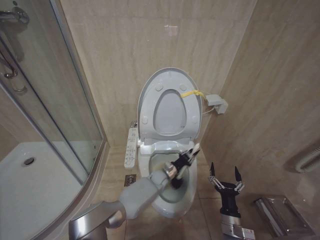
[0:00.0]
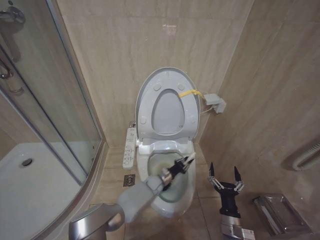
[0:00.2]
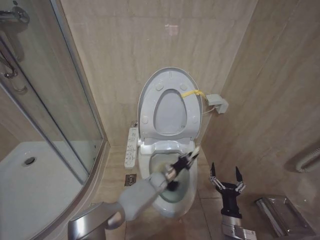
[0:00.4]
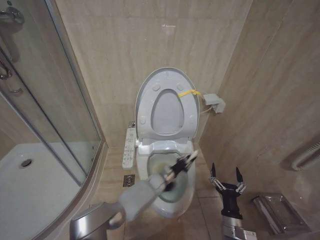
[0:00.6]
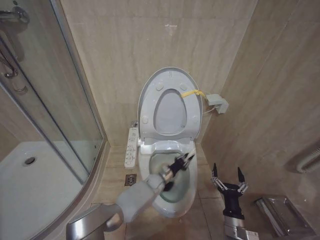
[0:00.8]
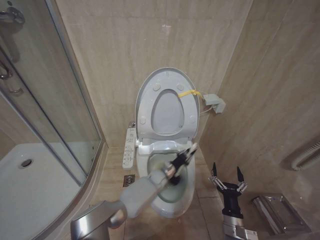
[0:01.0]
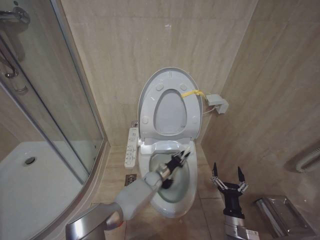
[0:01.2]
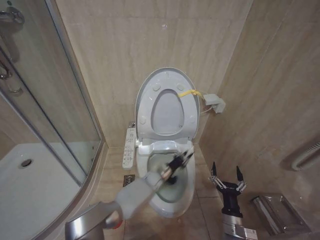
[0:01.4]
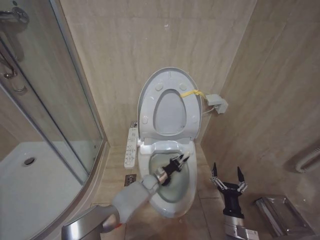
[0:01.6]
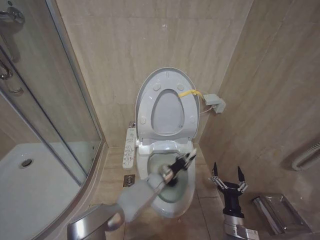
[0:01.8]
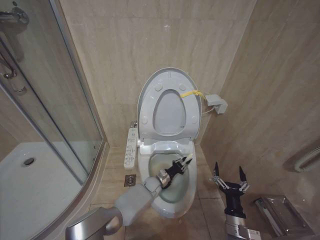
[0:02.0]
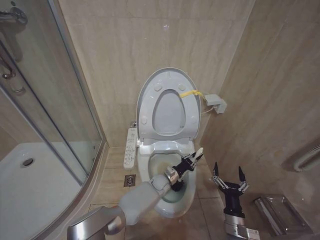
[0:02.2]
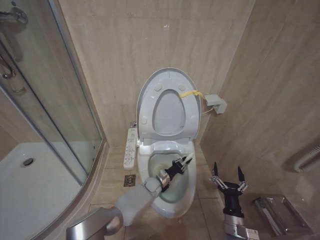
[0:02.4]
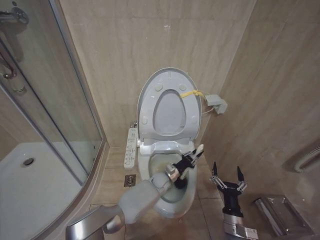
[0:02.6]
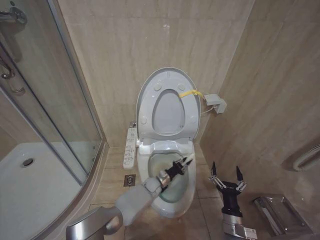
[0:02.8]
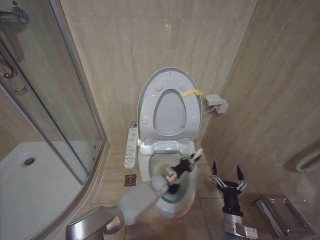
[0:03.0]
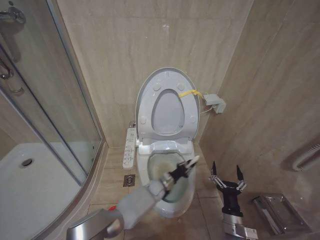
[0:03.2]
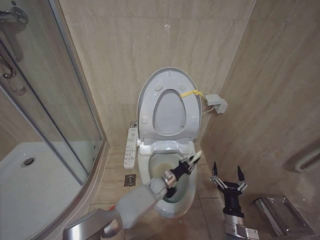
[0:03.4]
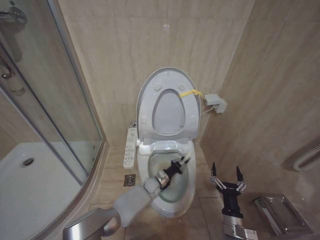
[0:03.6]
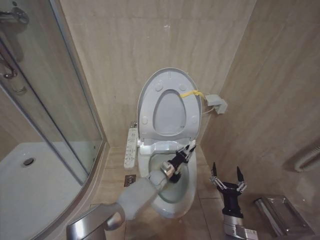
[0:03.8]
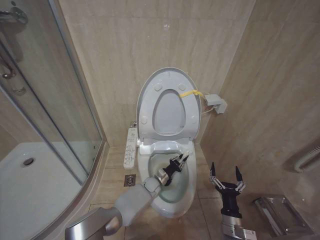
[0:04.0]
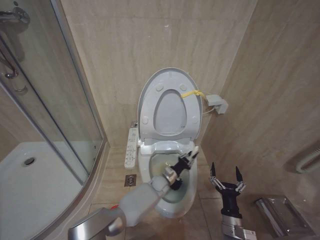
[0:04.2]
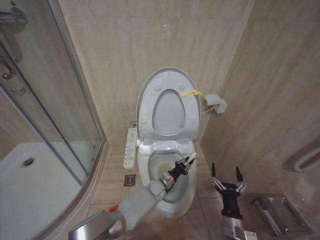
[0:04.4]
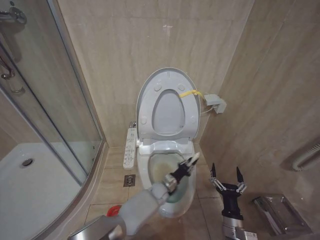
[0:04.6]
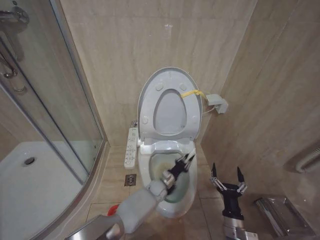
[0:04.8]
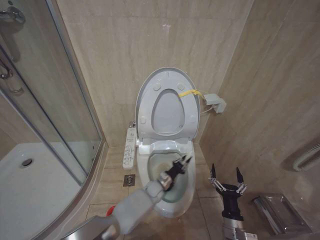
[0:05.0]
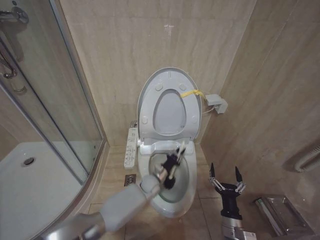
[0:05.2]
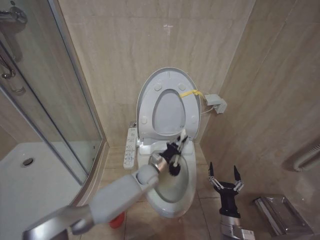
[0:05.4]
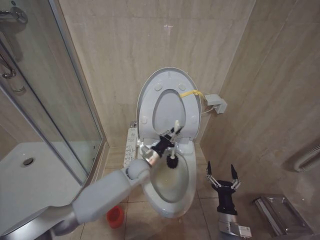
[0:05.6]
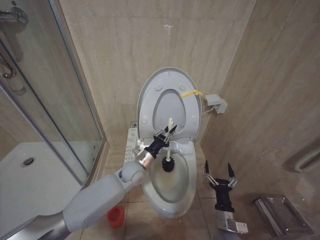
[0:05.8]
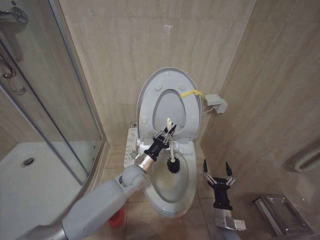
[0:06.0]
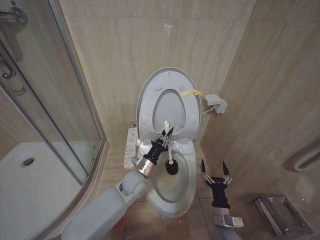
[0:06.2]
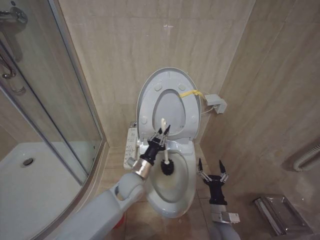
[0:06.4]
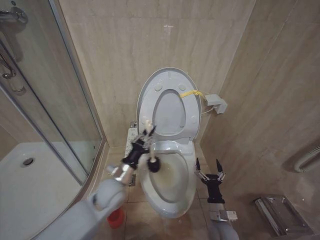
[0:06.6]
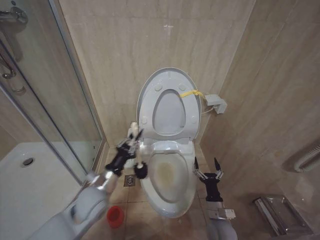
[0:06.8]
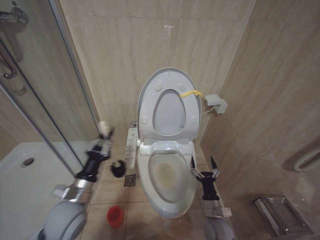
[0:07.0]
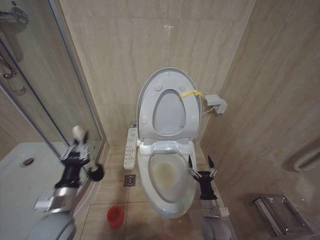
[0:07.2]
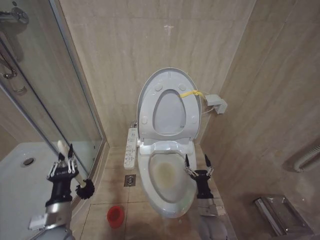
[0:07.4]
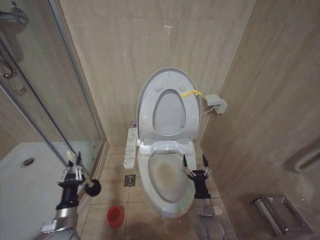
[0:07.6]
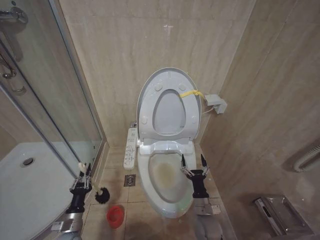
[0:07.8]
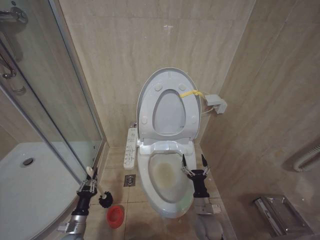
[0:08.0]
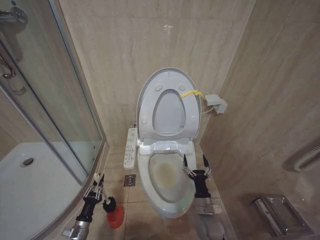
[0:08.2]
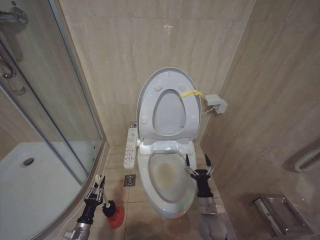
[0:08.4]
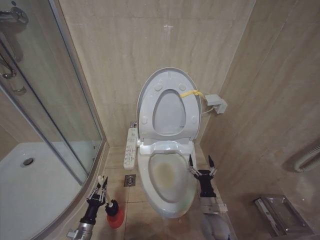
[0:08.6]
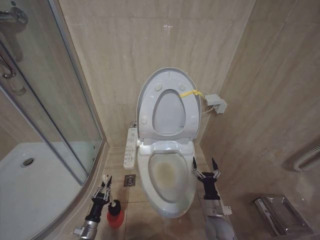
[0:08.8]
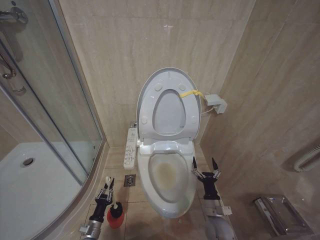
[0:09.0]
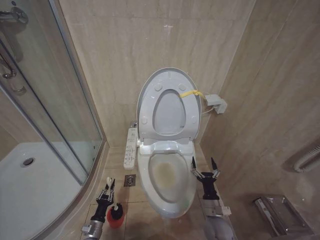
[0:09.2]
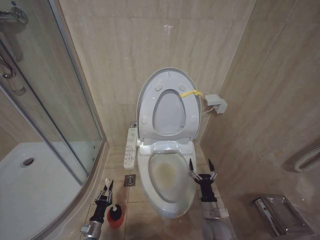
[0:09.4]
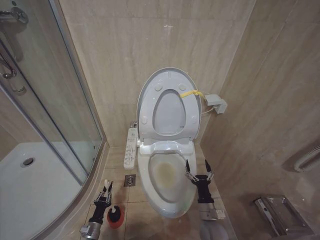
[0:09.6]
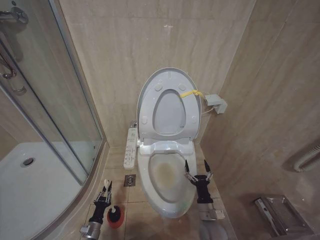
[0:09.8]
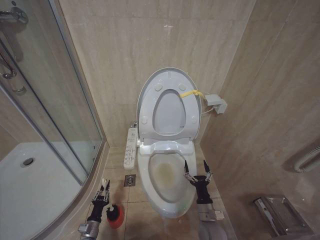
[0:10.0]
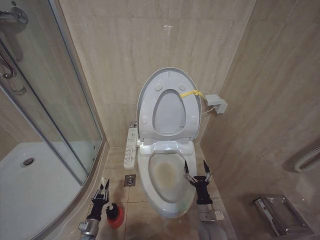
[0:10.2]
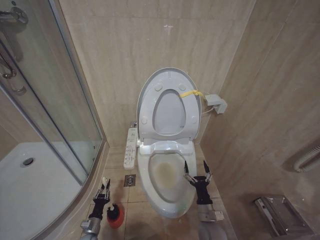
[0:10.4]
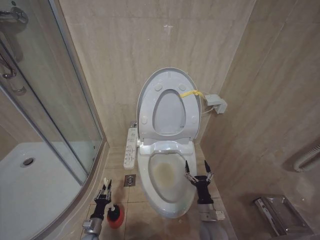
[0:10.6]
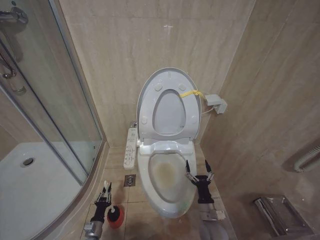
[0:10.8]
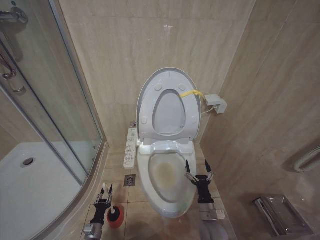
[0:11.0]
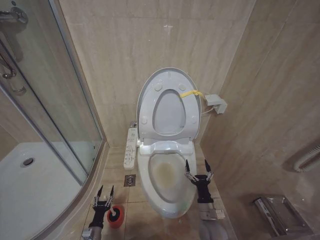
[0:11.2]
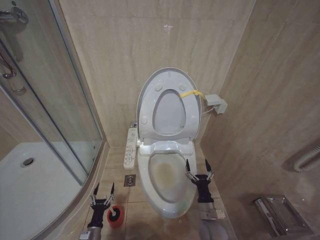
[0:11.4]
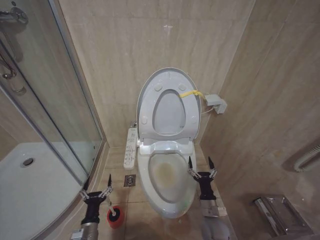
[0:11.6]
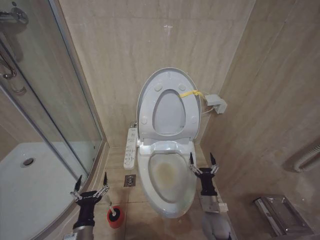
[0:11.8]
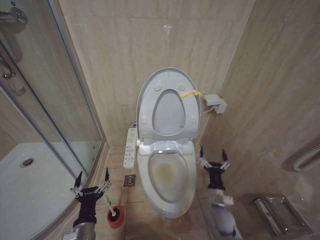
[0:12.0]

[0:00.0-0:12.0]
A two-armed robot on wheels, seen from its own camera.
Task of the whole recording: Open the toilet lid, clean the toilet bowl with a toilet brush, close the toilet lid, and flush.
0:00.0 to 0:01.6: The left gripper moves left and right over approximately 10 cm, changing direction 3 times.
0:03.0 to 0:04.4: The grippers move only a little.
0:04.4 to 0:06.0: The left gripper goes about 20 cm upward and to the left.
0:06.0 to 0:07.6: The right gripper moves roughly 5 cm; the left gripper shifts roughly 30 cm to the left and backward.
0:07.6 to 0:09.0: The left gripper goes some 20 cm downward.
0:09.0 to 0:10.4: The grippers make only small movements.
0:10.4 to 0:12.0: The right gripper is displaced upward by approximately 5 cm; the left gripper travels upward and backward by approximately 25 cm, and opens its fingers.

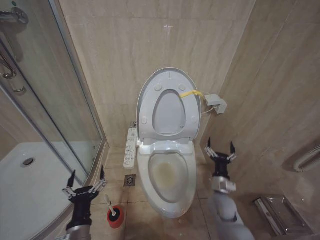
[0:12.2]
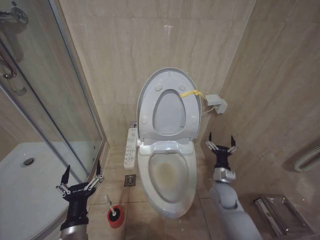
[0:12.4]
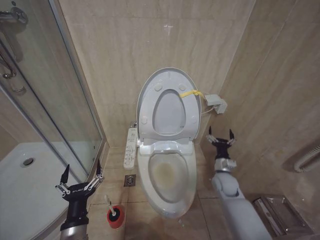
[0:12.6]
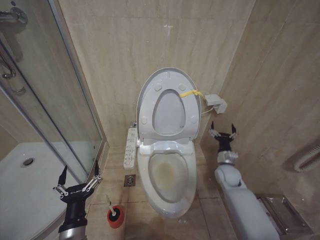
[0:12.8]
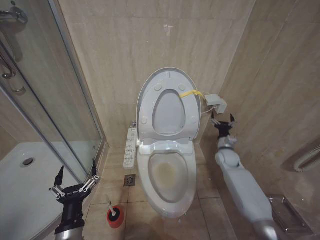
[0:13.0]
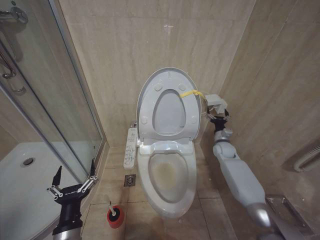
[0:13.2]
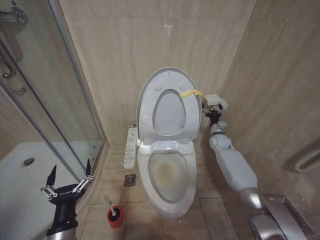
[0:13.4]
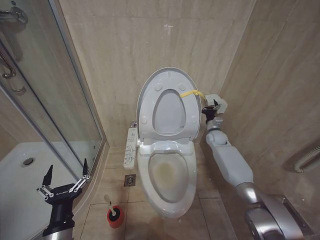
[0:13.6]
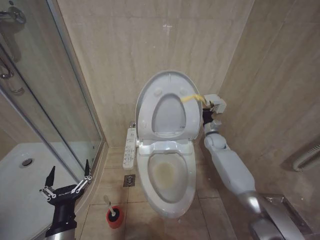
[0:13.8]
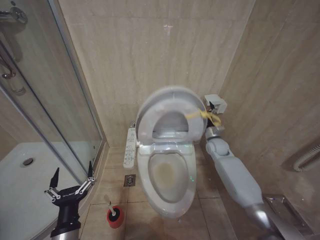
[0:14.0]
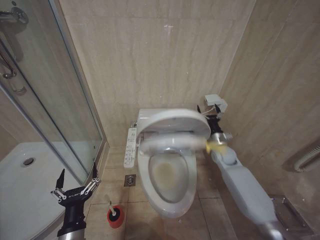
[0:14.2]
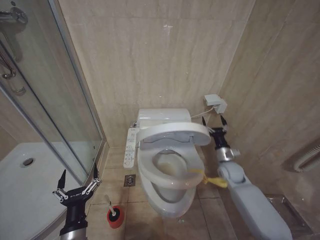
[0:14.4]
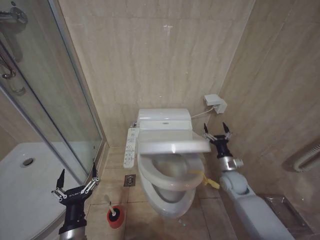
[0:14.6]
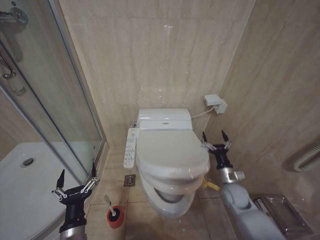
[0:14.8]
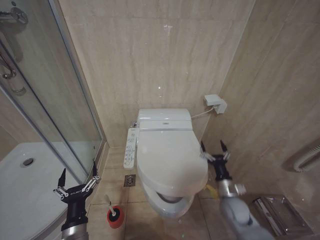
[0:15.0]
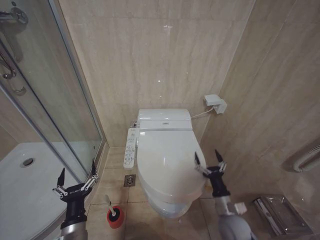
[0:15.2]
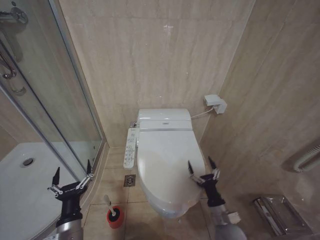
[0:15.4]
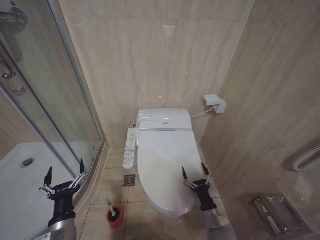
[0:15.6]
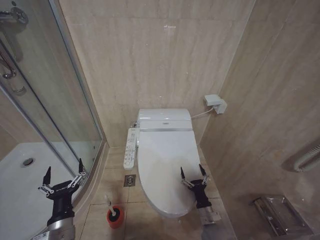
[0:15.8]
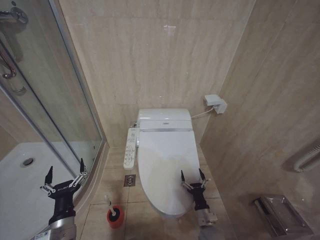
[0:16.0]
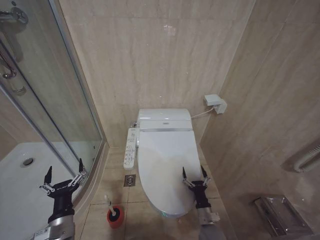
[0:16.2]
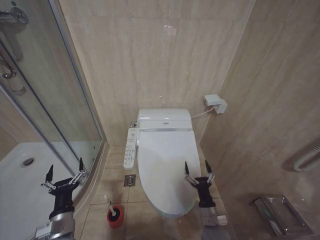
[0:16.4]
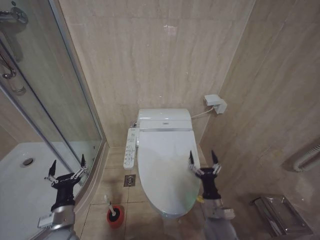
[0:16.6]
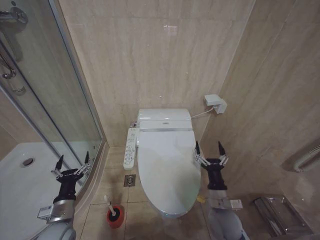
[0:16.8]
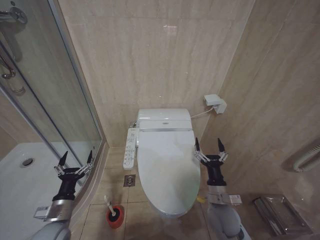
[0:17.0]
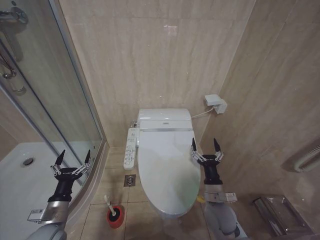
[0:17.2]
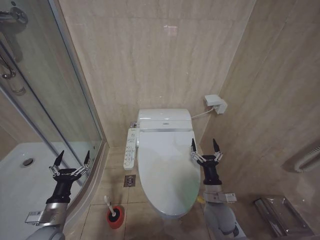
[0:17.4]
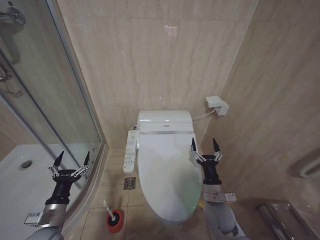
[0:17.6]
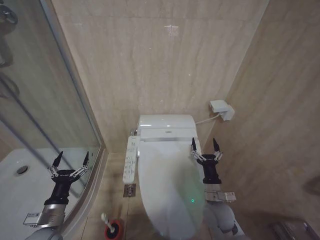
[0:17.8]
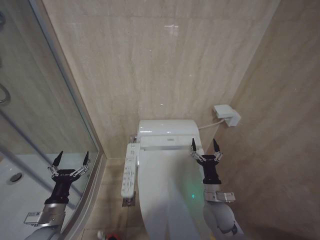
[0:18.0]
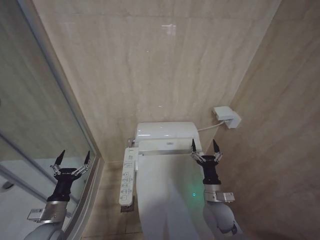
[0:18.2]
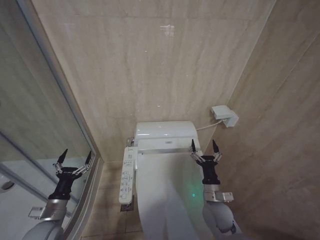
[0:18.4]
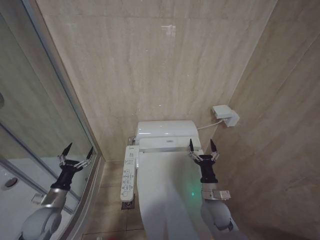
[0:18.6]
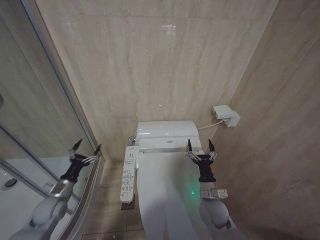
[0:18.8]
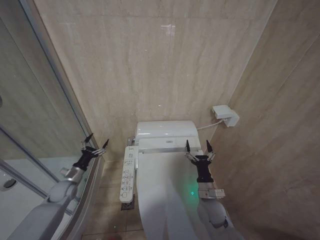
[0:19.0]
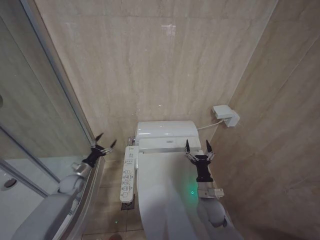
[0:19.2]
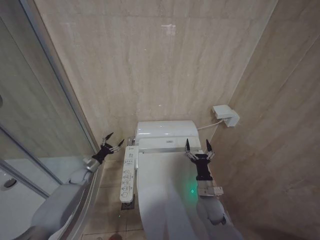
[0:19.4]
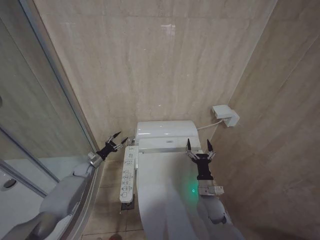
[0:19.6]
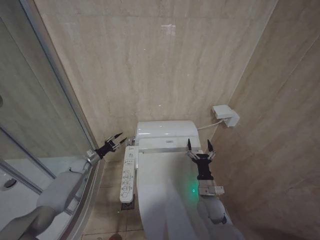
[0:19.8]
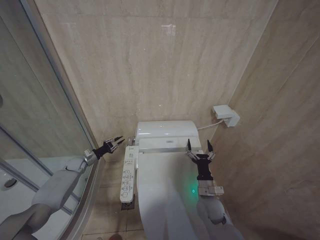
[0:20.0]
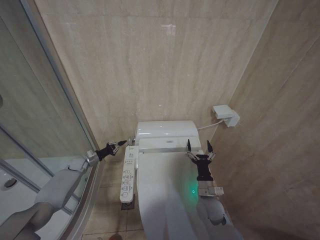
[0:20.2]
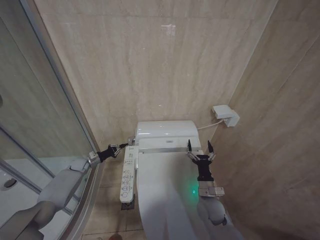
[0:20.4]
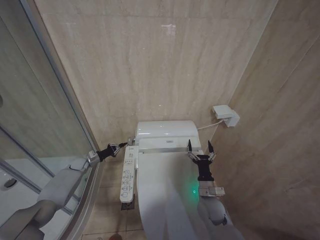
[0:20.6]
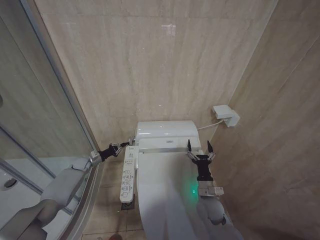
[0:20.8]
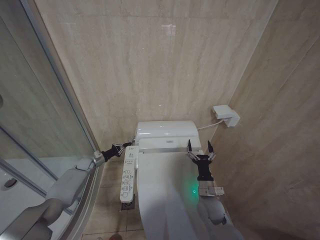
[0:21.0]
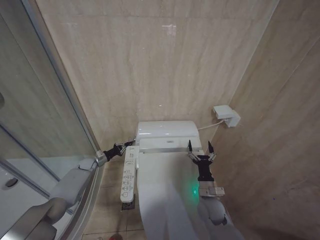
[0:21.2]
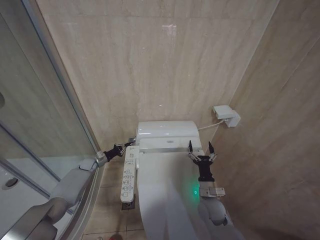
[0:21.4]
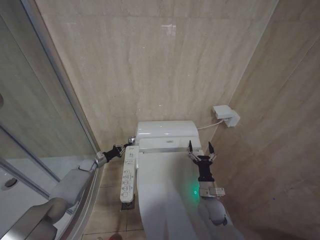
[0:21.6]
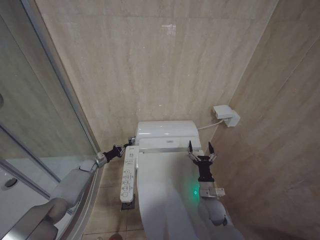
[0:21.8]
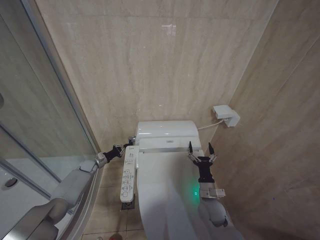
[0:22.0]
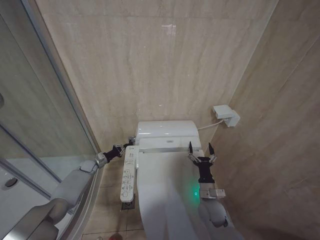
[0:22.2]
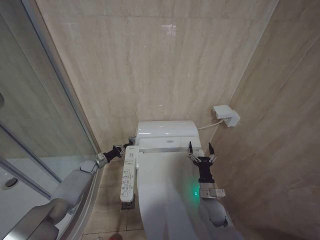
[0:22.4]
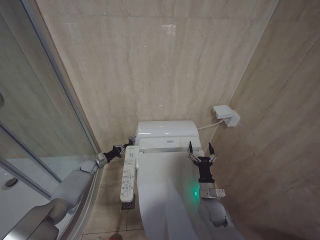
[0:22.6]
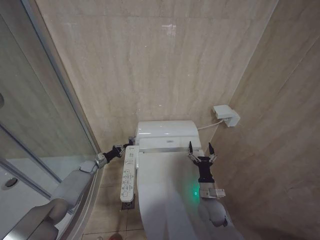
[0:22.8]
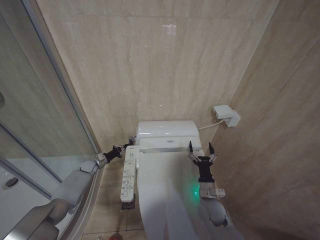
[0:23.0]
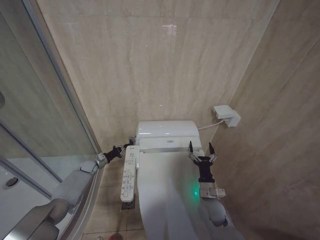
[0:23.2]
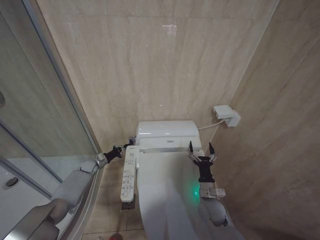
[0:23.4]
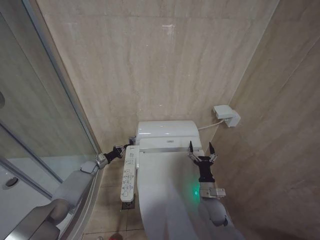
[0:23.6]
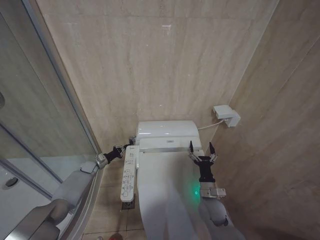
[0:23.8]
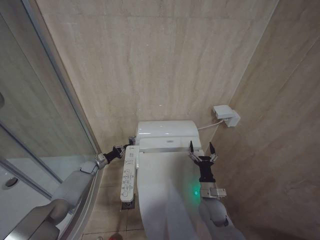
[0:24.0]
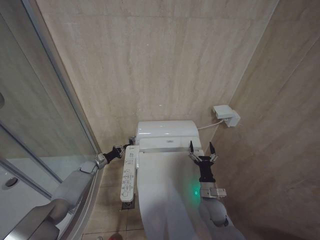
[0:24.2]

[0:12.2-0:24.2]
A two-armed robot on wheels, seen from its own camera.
Task of the whole recording: Open the toilet lid, clean the toilet bowl with a toilet brush, close the toilet lid, and flush.
0:12.2 to 0:13.8: The right gripper goes some 30 cm forward and upward.
0:13.8 to 0:15.2: The right gripper is displaced backward by approximately 30 cm.
0:15.2 to 0:16.6: The left gripper heads to the left and forward, covering some 10 cm; the right gripper heads to the left, covering some 5 cm, and goes downward and returns, about 15 cm each way.
0:16.6 to 0:18.2: The right gripper shifts by some 5 cm, while the left gripper heads to the left, covering some 5 cm.
0:18.2 to 0:19.8: The left gripper moves forward, about 30 cm.
0:19.8 to 0:21.2: The left gripper closes up.
0:21.2 to 0:22.6: There are only small adjustments of the grippers.
0:22.6 to 0:24.2: The two grippers keep their place.
